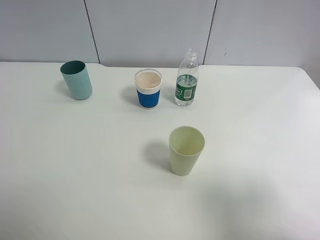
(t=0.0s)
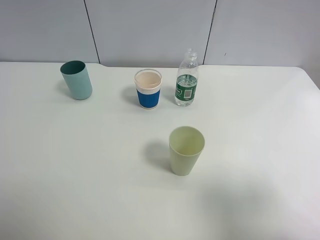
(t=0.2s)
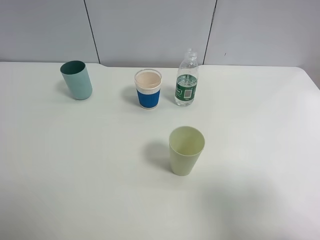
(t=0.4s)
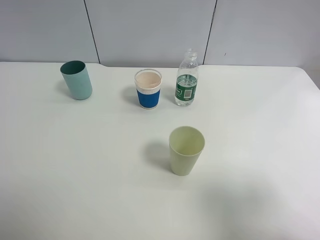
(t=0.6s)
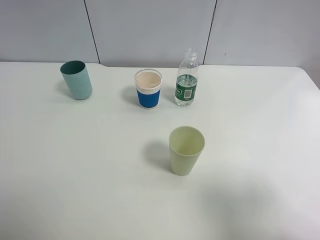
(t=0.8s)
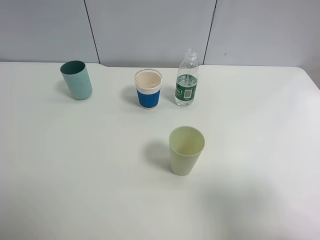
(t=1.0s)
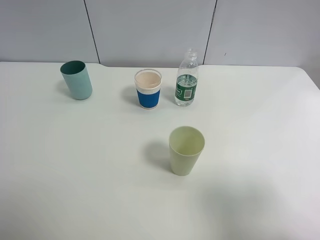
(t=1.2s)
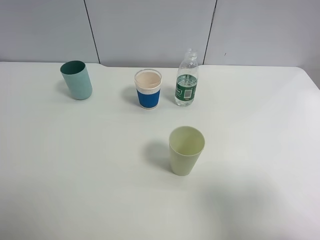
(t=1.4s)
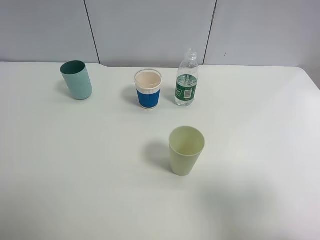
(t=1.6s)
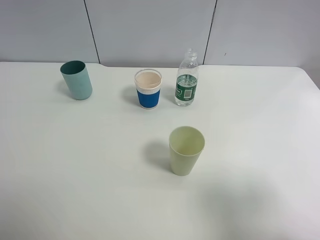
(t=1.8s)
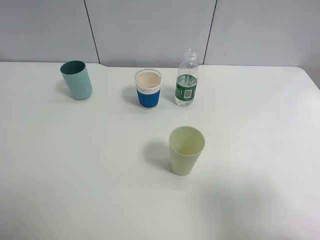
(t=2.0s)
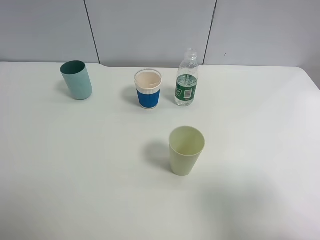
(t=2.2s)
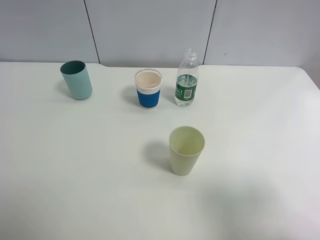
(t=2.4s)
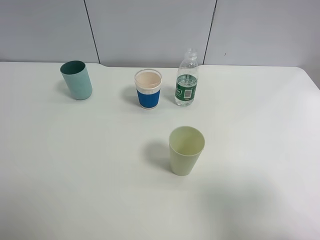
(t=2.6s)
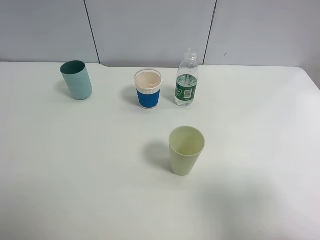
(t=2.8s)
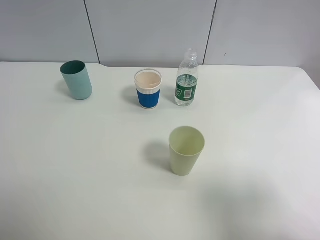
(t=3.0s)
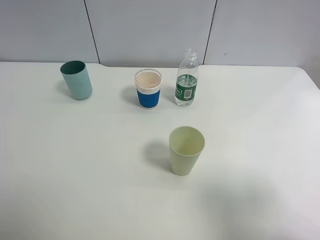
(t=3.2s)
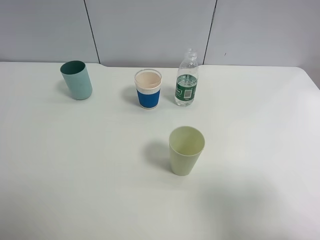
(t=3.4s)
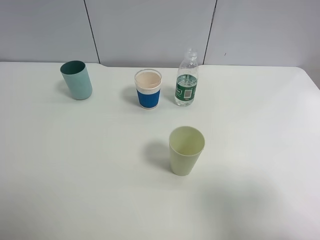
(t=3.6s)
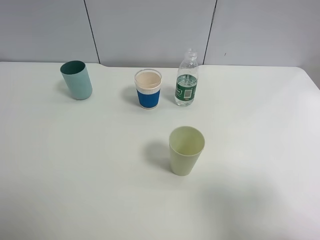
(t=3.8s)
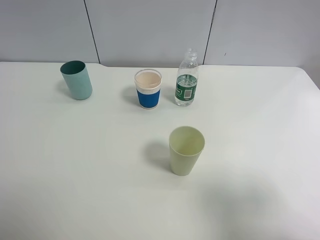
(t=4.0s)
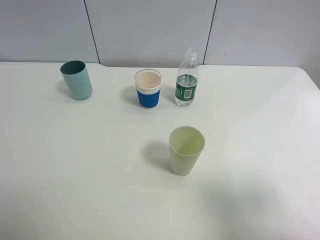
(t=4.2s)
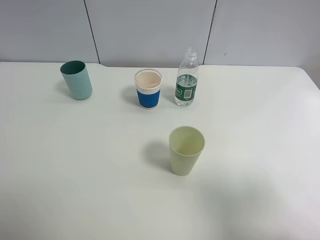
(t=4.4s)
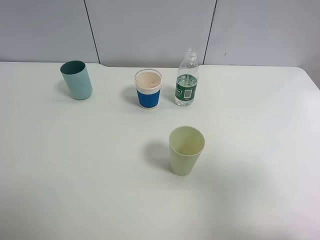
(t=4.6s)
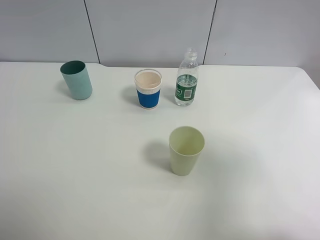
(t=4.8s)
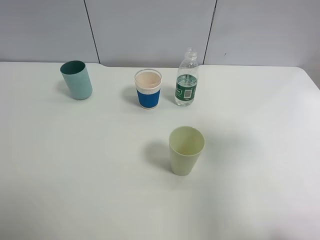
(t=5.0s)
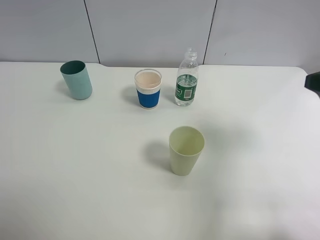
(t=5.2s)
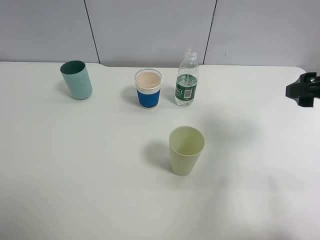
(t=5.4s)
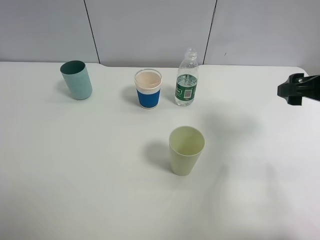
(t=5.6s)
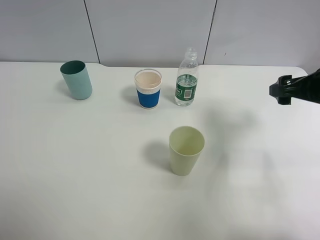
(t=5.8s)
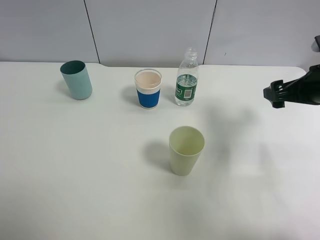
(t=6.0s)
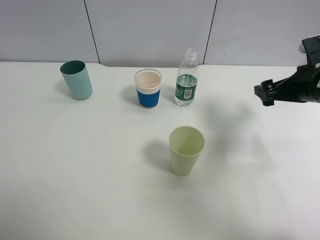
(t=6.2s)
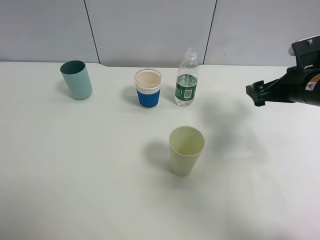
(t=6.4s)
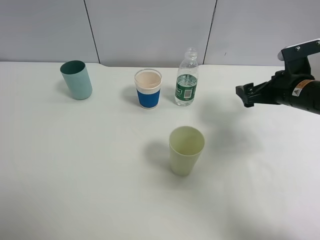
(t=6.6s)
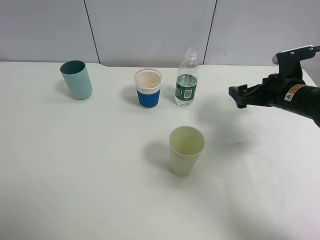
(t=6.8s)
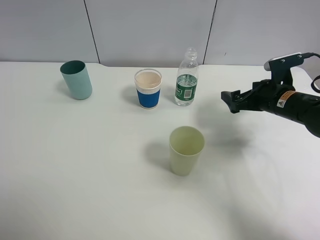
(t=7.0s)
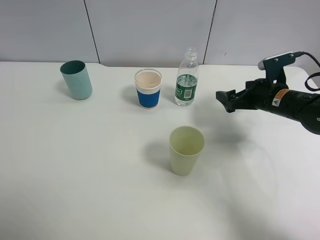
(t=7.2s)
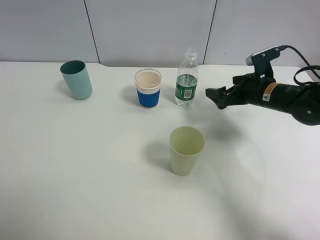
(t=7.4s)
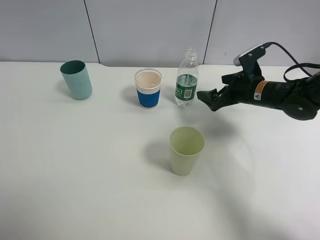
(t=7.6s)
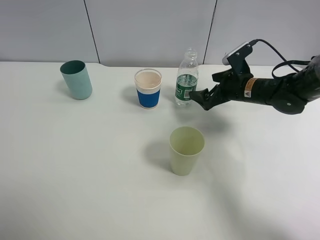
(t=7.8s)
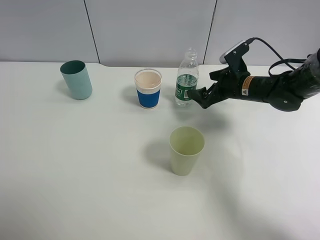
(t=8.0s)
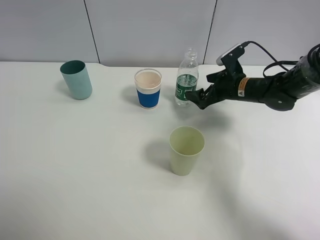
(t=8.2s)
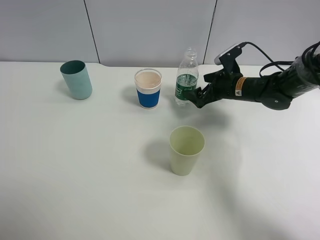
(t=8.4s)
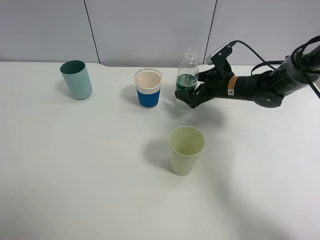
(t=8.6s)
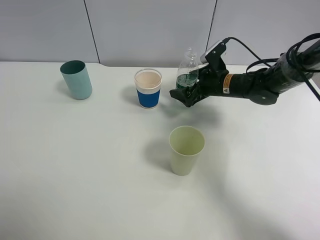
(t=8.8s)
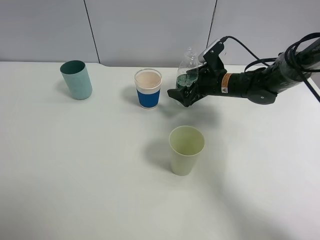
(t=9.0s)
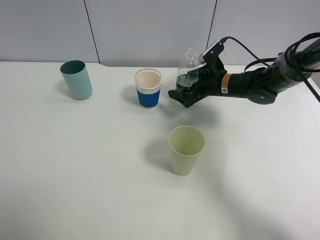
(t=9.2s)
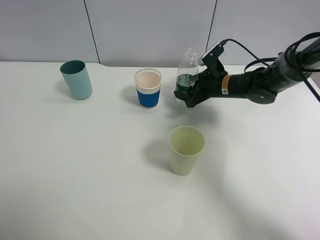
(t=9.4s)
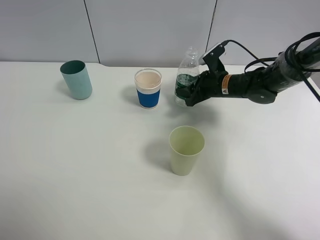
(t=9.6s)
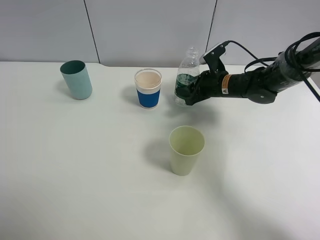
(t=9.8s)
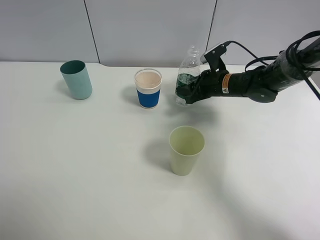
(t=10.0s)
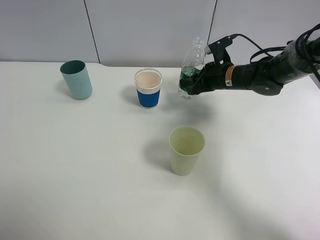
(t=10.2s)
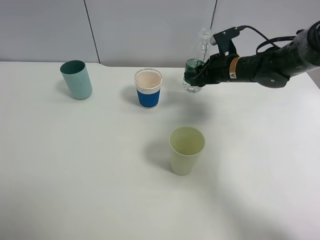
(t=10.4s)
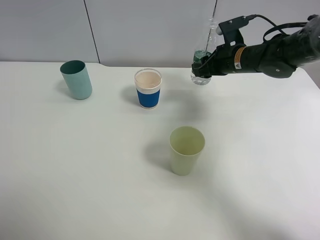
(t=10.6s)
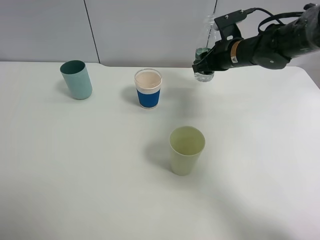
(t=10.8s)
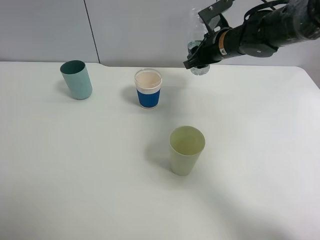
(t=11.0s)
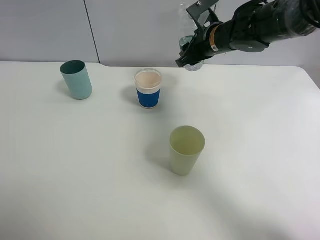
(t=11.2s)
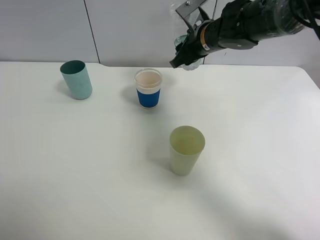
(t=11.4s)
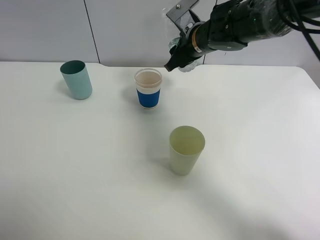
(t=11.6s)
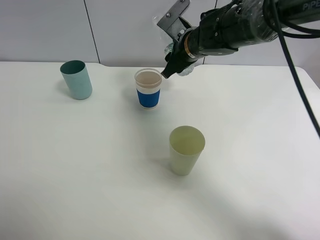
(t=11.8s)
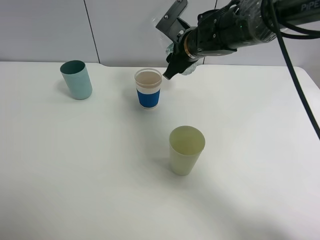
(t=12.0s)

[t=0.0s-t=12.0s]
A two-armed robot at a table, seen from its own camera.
Task of the whole recording: use a clamp to hold the bottle of the drink, pour the beverage into a random cup, then clamp the cup containing the drink and pour the drink into another random cup.
Step, t=0.0s to t=11.2s: Pick up the water bottle with right gripper.
t=0.0s to t=3.0s: Neither gripper changes place.
t=4.4s to t=6.0s: The right gripper heads forward, covering some 25 cm.
t=6.0s to t=7.6s: The right gripper heads forward, downward and to the left, covering roughly 15 cm.
t=7.6s to t=9.0s: The right gripper moves to the left, approximately 5 cm.
t=9.0s to t=10.4s: The right gripper closes its fingers.
t=10.4s to t=12.0s: The right gripper travels to the left and upward by roughly 10 cm.

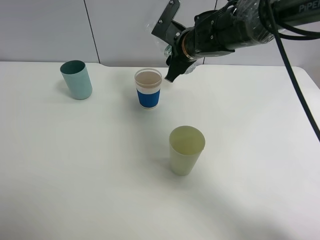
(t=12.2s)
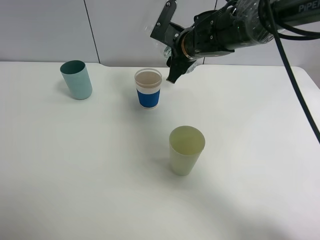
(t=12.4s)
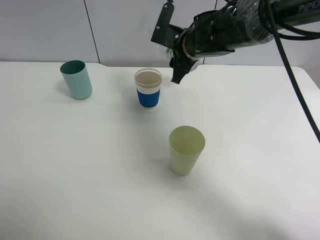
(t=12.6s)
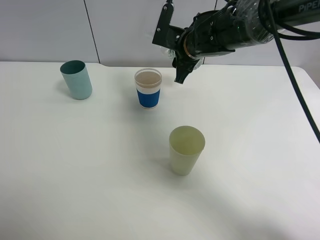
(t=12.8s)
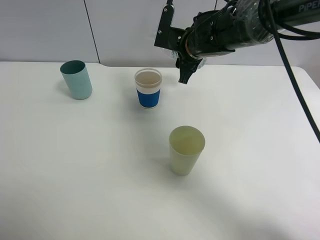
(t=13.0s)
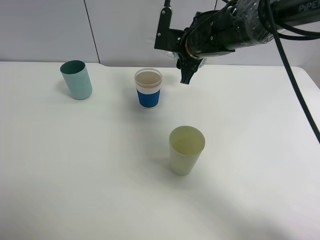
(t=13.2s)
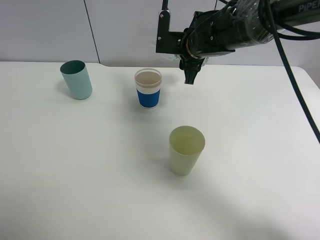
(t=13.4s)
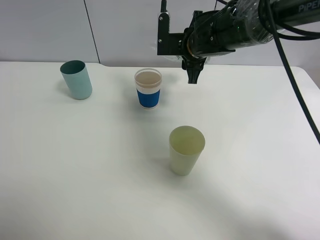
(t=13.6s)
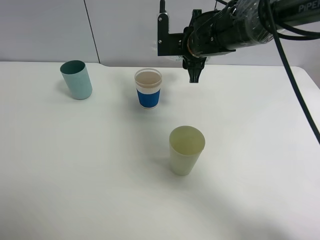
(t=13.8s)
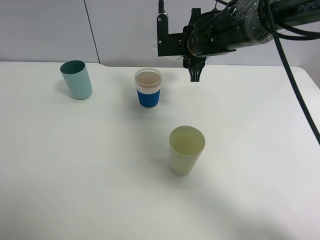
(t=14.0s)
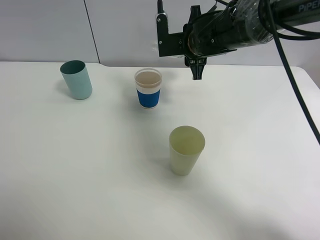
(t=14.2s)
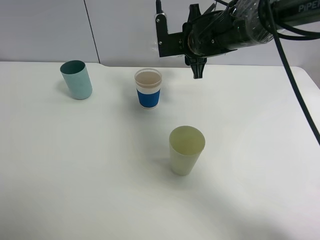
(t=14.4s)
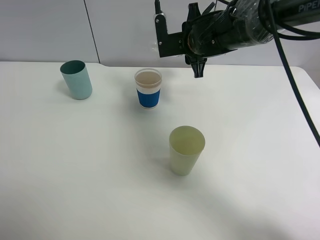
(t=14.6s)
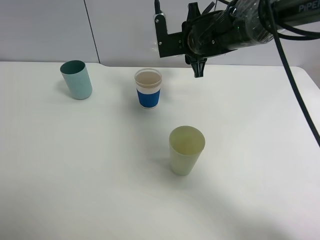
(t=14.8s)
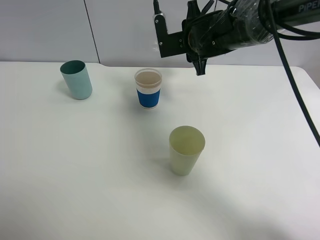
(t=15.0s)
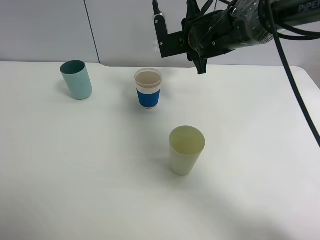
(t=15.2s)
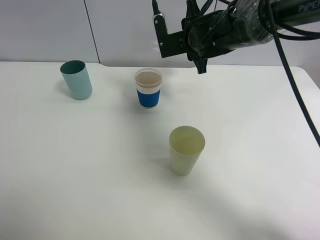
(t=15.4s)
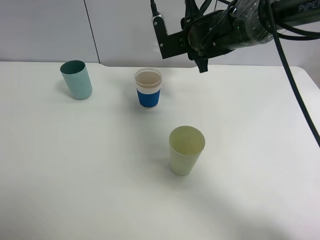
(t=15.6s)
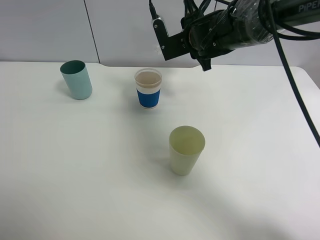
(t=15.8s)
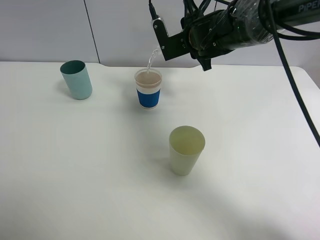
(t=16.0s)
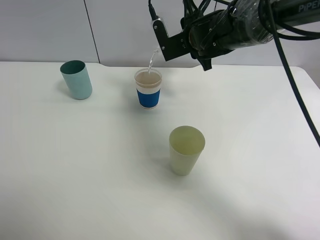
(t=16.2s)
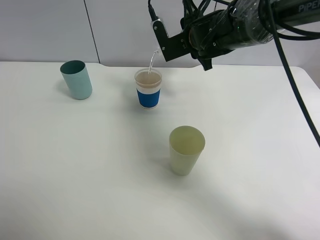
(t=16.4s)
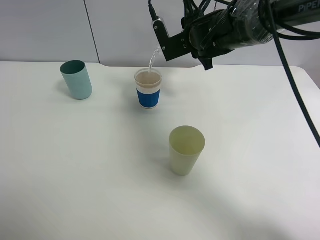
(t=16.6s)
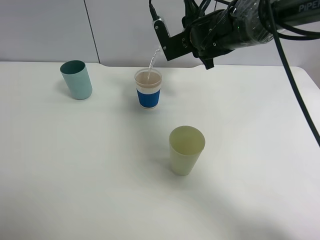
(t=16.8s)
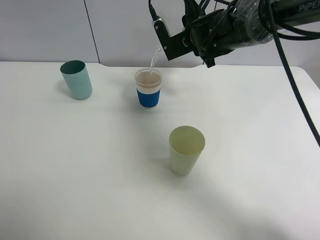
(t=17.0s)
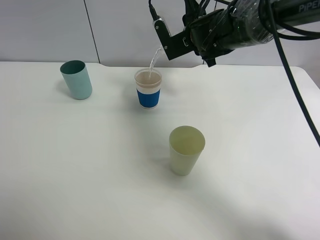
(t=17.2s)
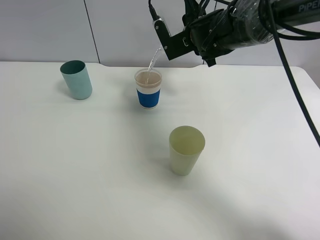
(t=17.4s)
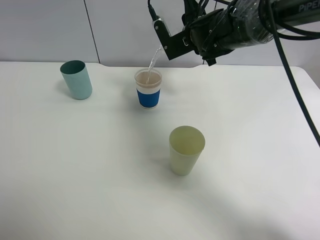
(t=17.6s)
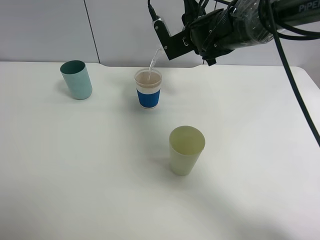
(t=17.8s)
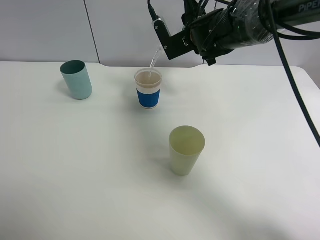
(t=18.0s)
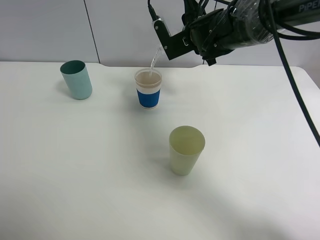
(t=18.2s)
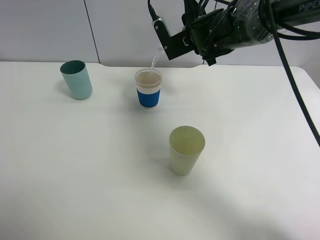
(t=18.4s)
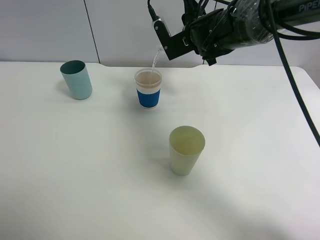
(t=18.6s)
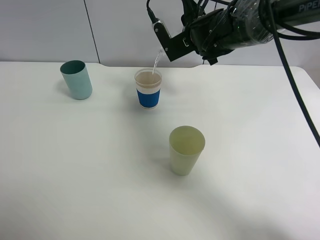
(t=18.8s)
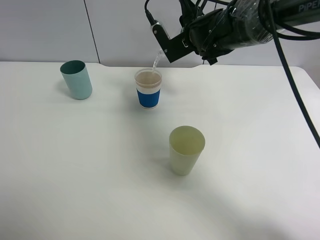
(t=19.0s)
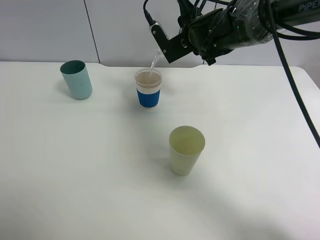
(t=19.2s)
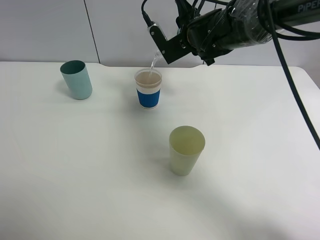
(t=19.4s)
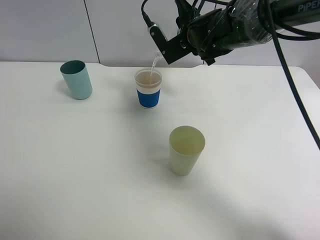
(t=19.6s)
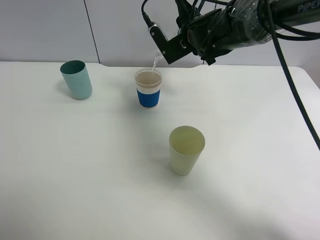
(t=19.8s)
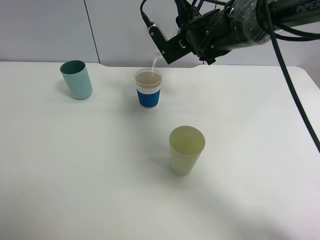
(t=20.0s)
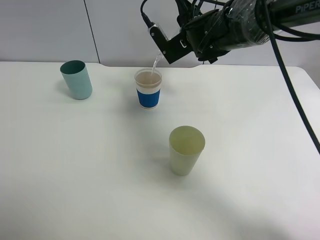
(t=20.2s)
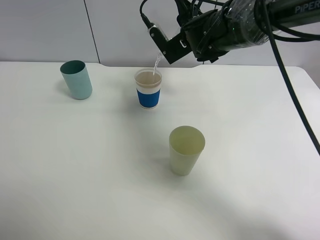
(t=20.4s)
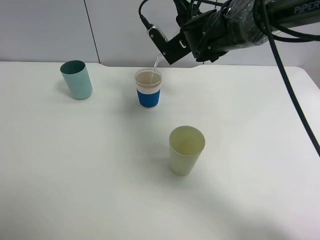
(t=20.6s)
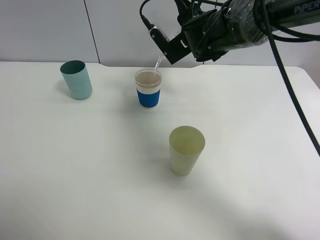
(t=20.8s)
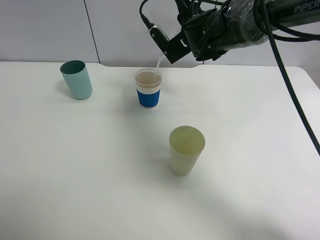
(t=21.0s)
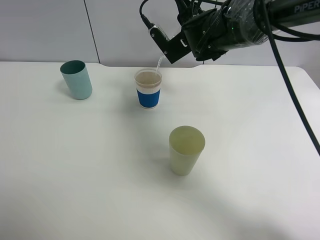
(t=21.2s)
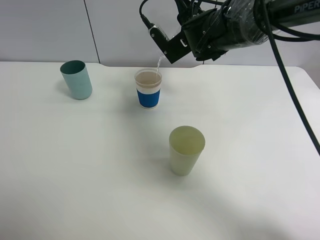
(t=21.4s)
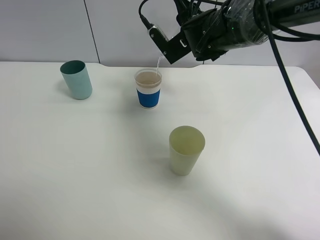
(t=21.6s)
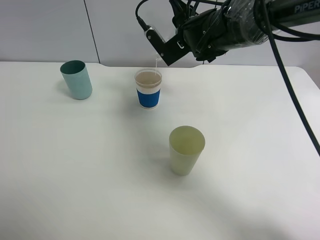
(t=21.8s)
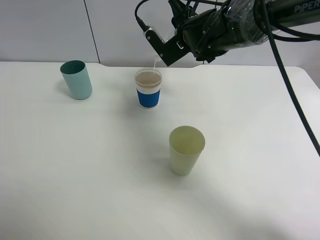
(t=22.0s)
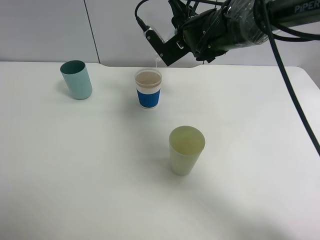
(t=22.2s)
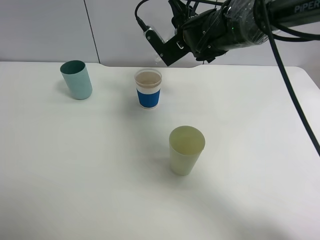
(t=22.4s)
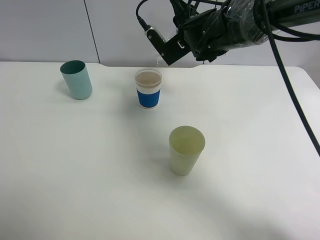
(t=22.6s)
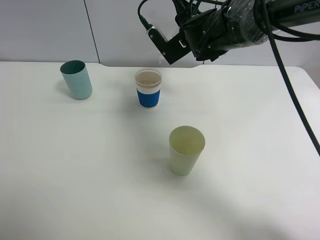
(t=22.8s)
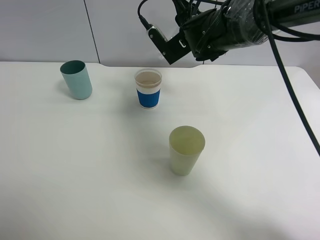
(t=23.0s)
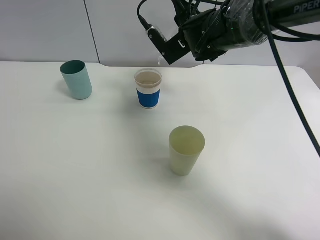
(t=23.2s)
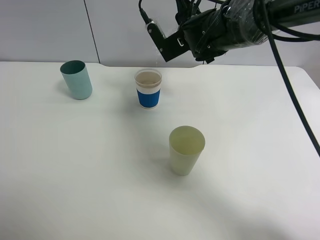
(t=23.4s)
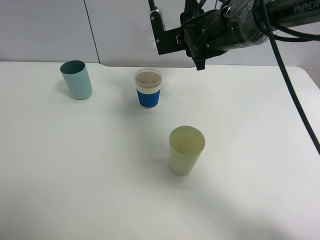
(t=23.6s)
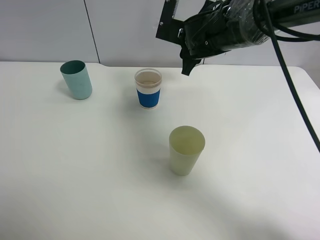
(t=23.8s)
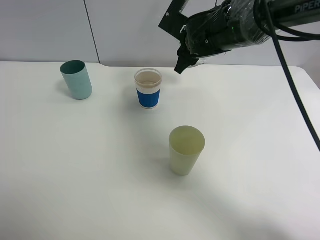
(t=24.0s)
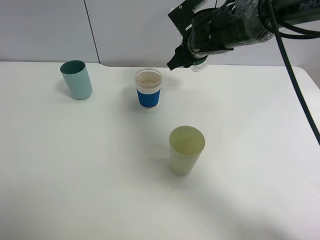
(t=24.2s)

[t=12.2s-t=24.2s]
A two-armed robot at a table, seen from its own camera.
Task of the whole recording: use a clamp to hold the bottle of the drink, pour the beverage into a random cup, then clamp the cup containing the drink and pour the drink into another random cup.
Step, t=12.2s to t=23.8s: Pour water into the paper cup with right gripper.
t=13.8s to t=15.2s: The grippers make only small movements.
t=15.2s to t=16.6s: The grippers stay close to where they were, moving slightly.
t=16.6s to t=18.2s: The two grippers keep their place.
t=18.2s to t=21.2s: There are only small adjustments of the grippers.
t=21.2s to t=22.6s: Both grippers stay put.
